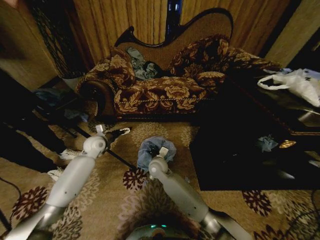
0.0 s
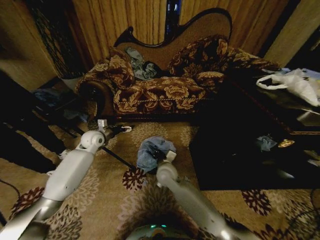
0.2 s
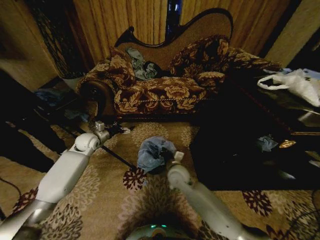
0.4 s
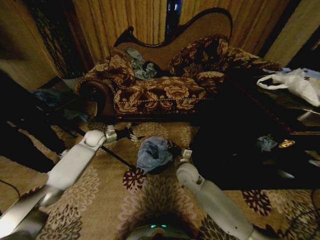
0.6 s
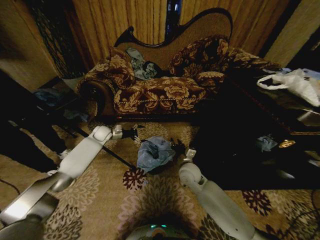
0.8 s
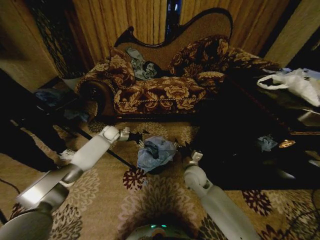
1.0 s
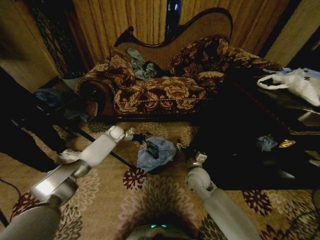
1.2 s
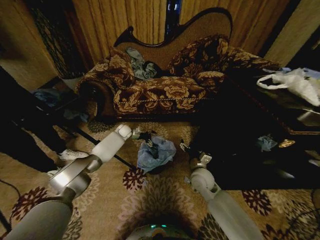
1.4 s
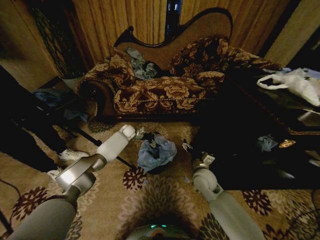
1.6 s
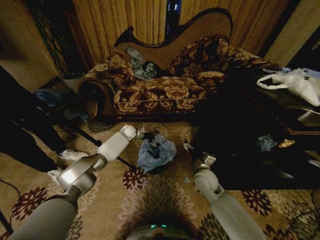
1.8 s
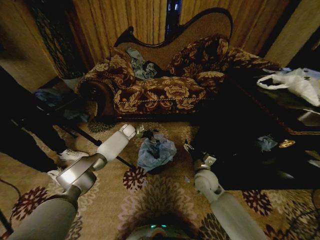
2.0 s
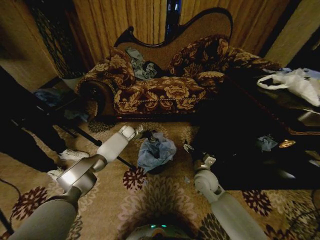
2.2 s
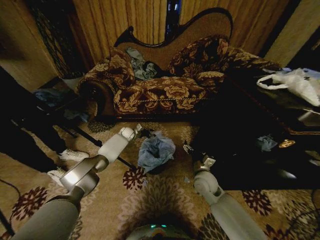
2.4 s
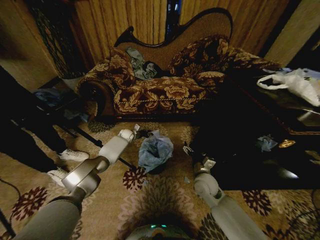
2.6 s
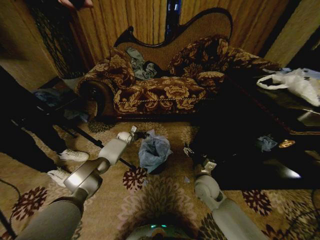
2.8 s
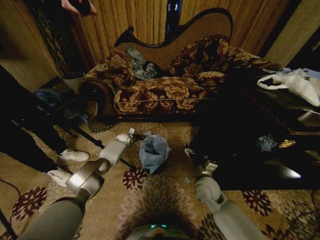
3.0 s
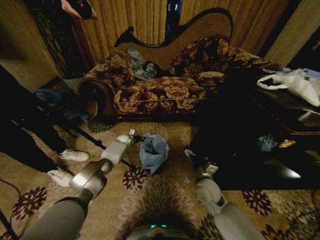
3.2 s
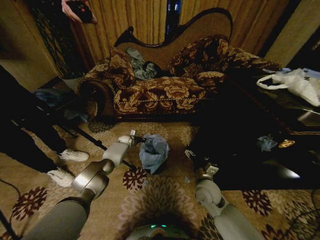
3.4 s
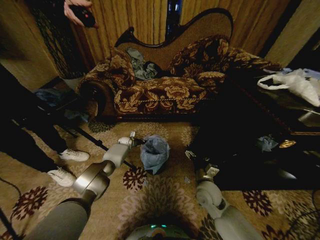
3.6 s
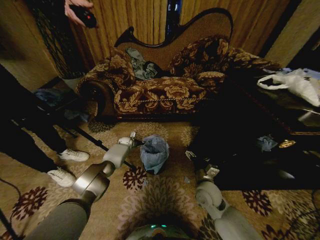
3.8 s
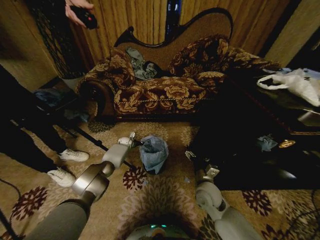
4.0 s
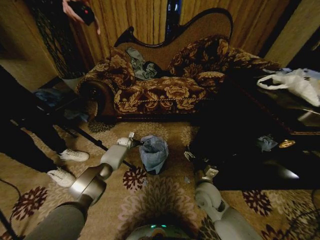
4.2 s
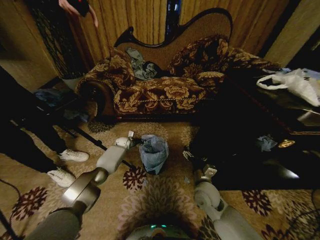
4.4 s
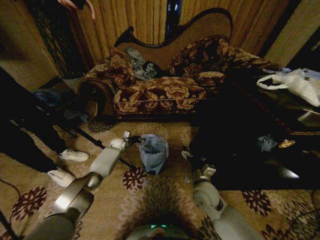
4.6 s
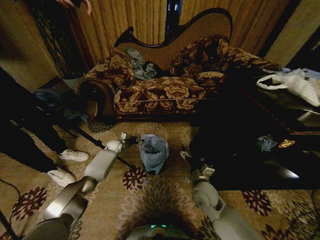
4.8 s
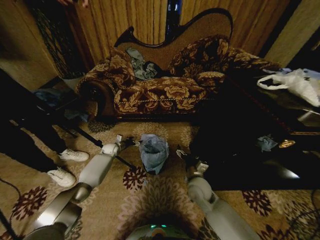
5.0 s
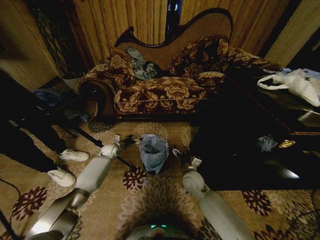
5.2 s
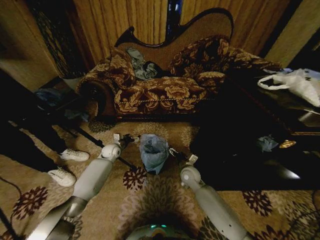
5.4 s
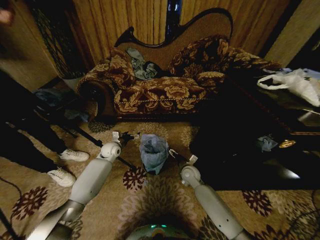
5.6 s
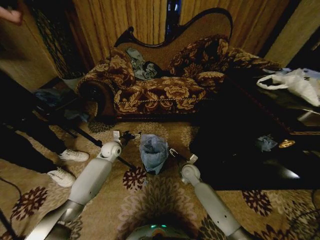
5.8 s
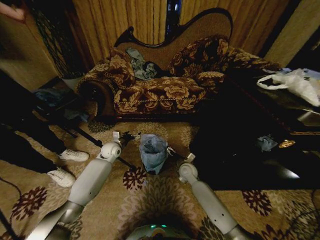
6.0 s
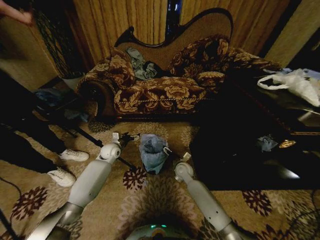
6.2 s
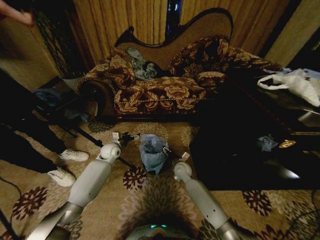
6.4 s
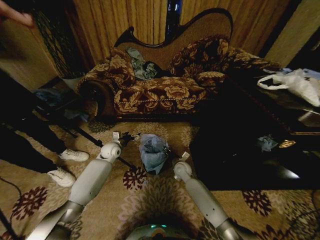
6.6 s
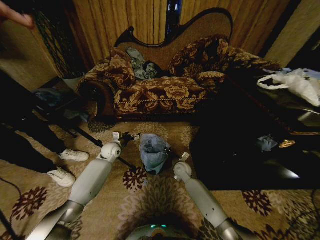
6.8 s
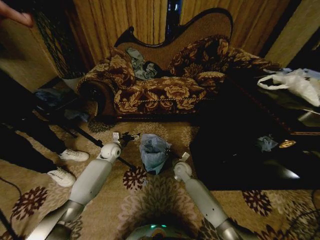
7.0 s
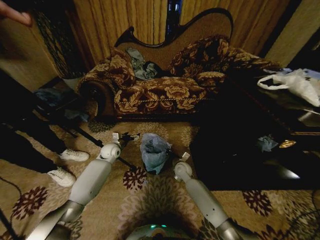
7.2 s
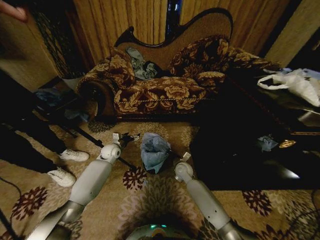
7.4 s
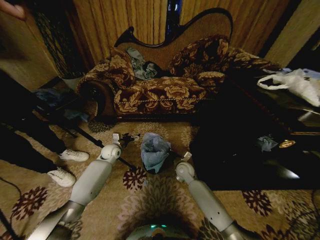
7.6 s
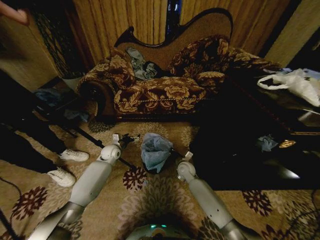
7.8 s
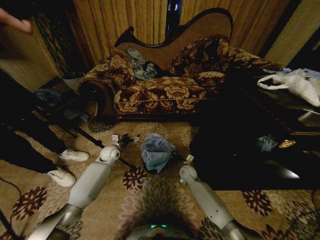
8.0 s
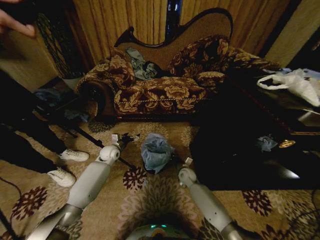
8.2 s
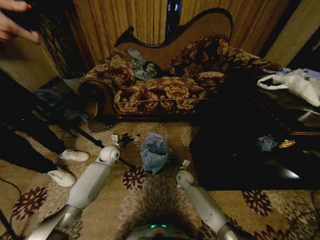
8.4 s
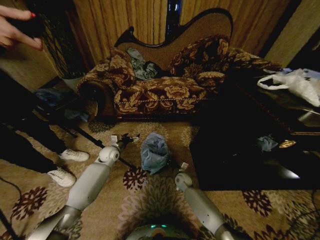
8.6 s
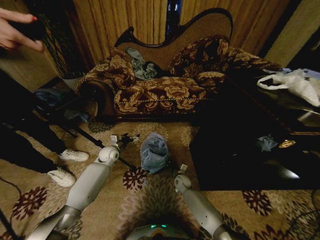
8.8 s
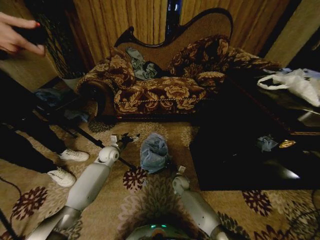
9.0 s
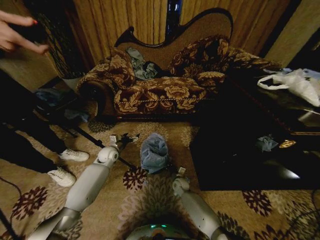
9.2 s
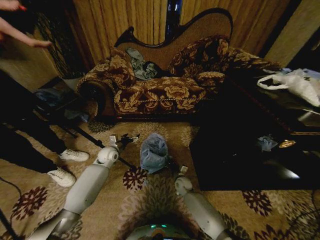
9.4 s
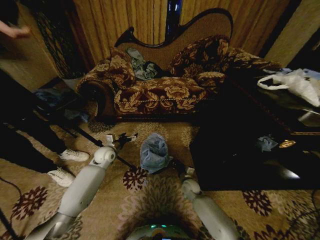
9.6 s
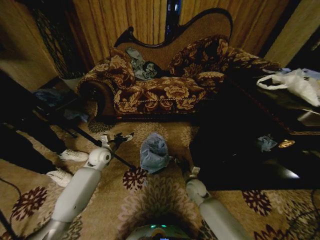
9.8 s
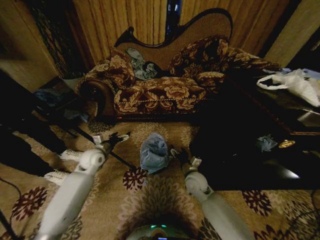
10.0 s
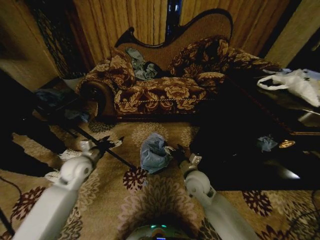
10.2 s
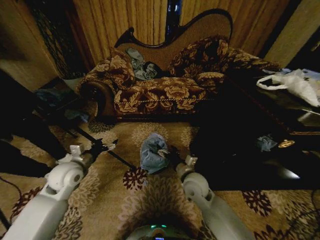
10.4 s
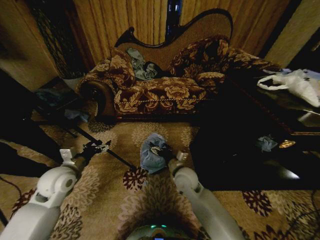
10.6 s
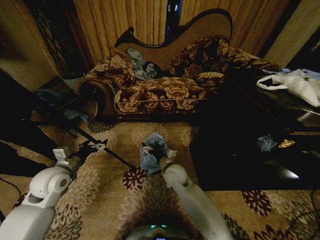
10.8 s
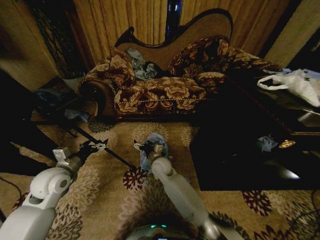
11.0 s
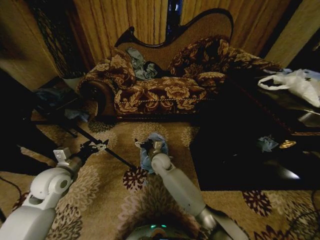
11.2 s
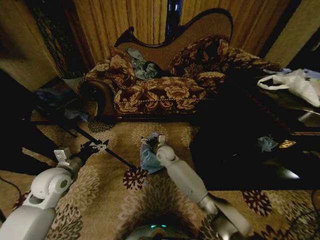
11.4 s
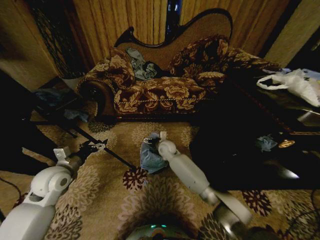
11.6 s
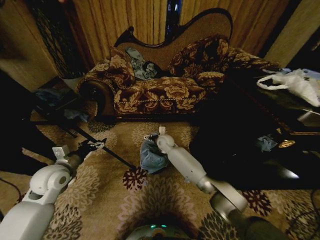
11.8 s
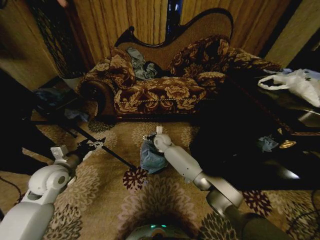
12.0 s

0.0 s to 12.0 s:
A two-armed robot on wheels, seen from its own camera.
Task of the whole recording: Place a garbage bag over the trash bin.
0.0 to 1.6 s: The right gripper moves to the right, roughly 20 cm, and opens, while the left gripper goes some 20 cm forward, to the right and downward.
1.6 to 3.0 s: The left gripper goes approximately 10 cm downward, and closes its fingers.
3.0 to 4.4 s: The grippers make only small movements.
4.4 to 6.0 s: The right gripper shifts about 15 cm forward and downward, while the left gripper is displaced backward and upward by roughly 15 cm, and opens its fingers.
6.0 to 7.6 s: The right gripper closes its fingers.
7.6 to 9.0 s: The right gripper goes roughly 15 cm downward.
9.0 to 10.4 s: The right gripper shifts roughly 25 cm upward and backward, and opens its fingers. Meanwhile the left gripper goes some 20 cm backward and upward.
10.4 to 12.0 s: The right gripper moves forward and to the left, approximately 25 cm.

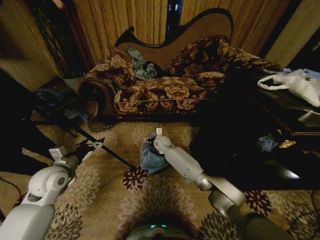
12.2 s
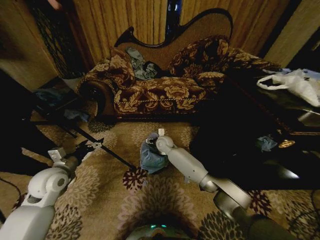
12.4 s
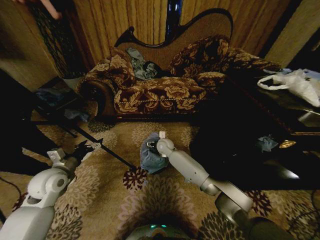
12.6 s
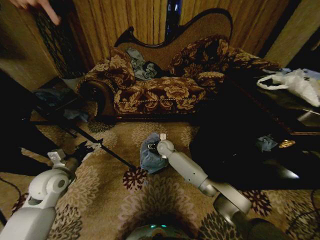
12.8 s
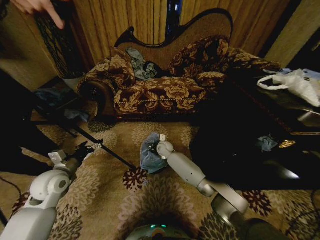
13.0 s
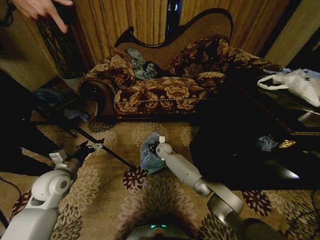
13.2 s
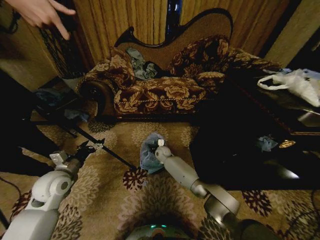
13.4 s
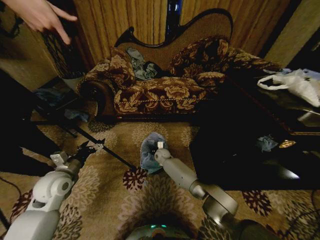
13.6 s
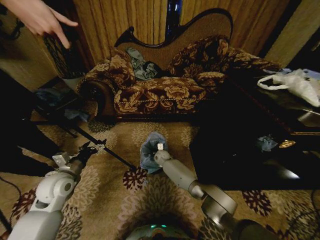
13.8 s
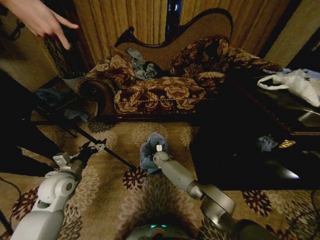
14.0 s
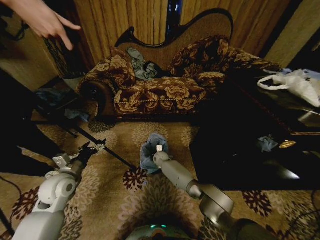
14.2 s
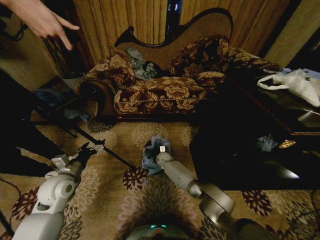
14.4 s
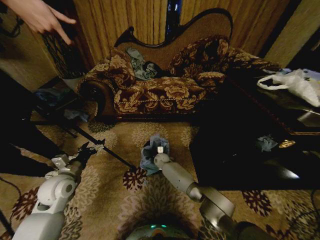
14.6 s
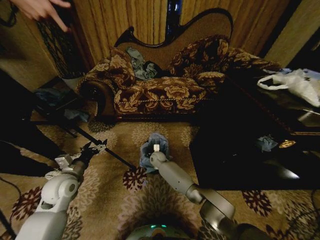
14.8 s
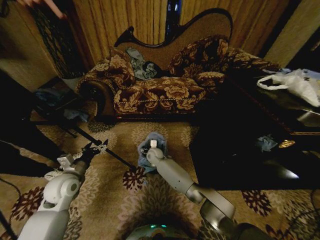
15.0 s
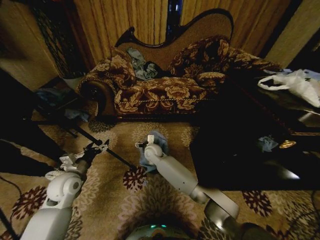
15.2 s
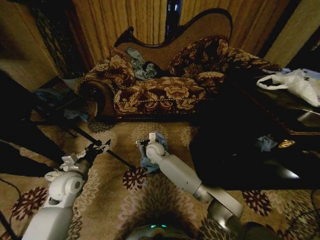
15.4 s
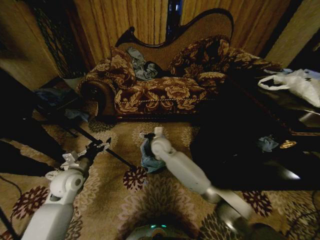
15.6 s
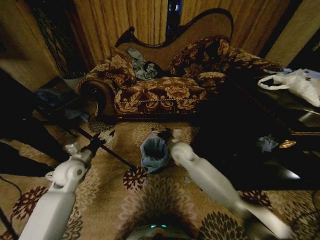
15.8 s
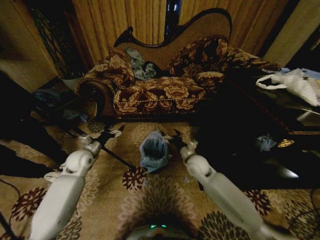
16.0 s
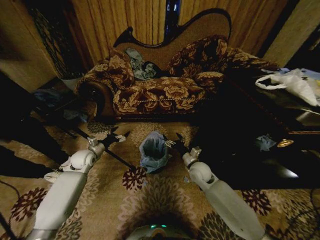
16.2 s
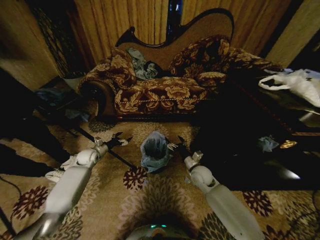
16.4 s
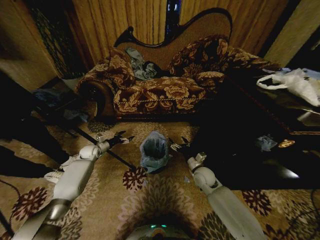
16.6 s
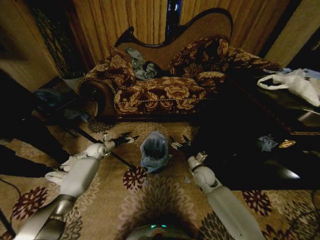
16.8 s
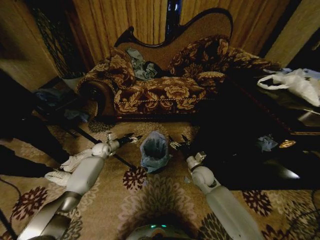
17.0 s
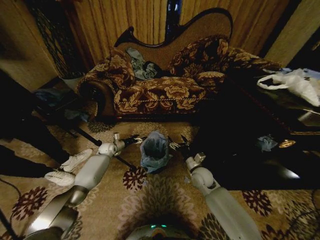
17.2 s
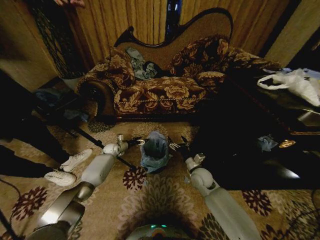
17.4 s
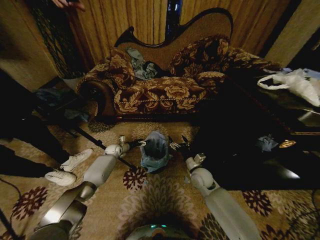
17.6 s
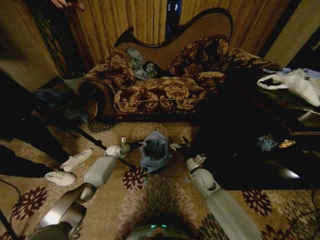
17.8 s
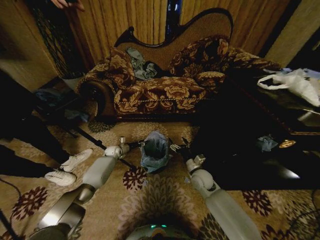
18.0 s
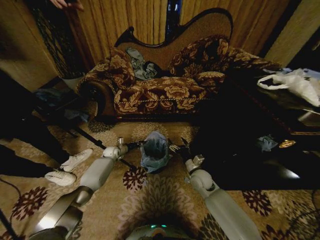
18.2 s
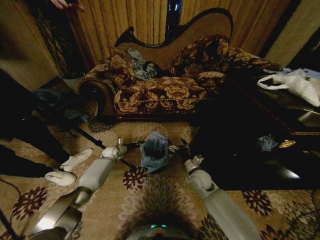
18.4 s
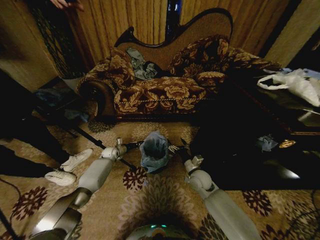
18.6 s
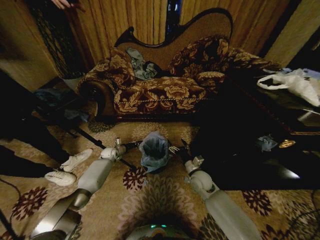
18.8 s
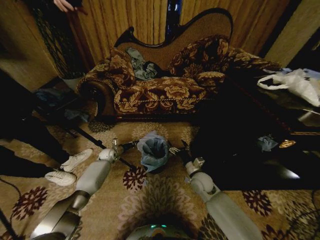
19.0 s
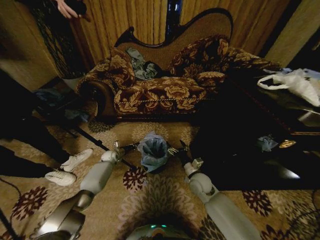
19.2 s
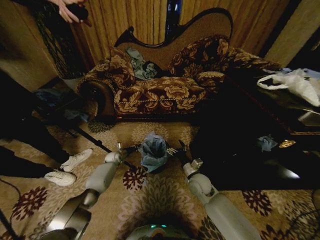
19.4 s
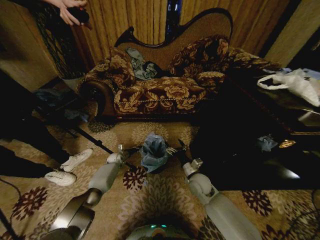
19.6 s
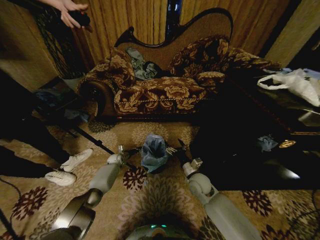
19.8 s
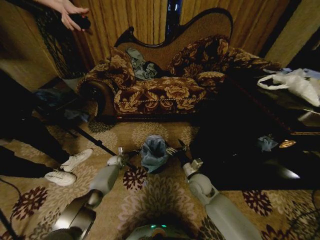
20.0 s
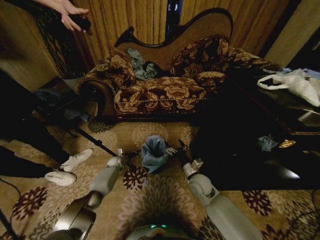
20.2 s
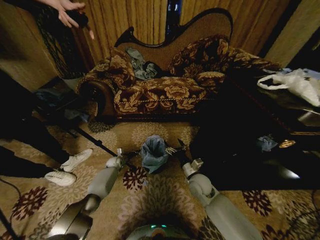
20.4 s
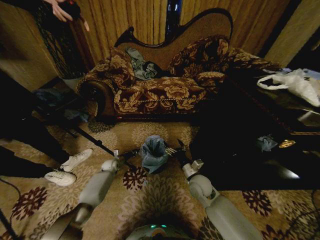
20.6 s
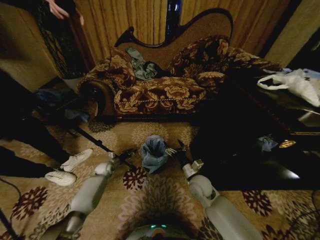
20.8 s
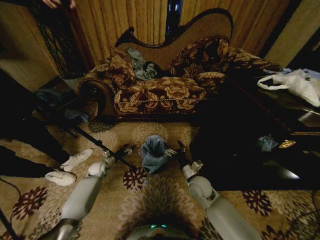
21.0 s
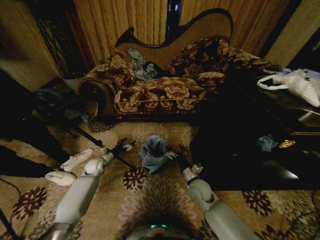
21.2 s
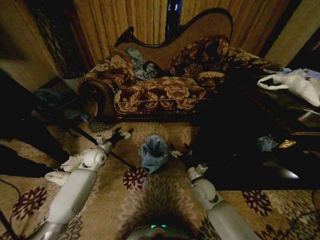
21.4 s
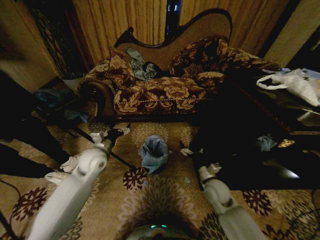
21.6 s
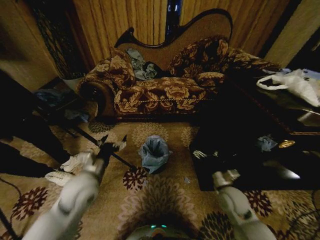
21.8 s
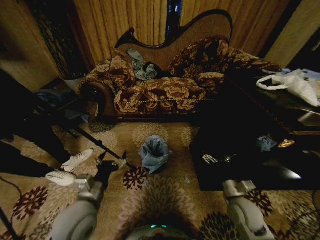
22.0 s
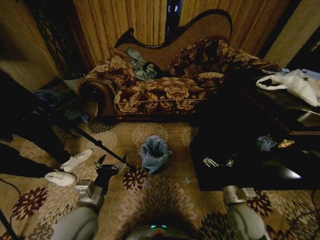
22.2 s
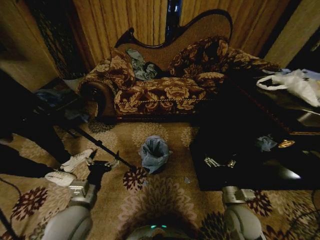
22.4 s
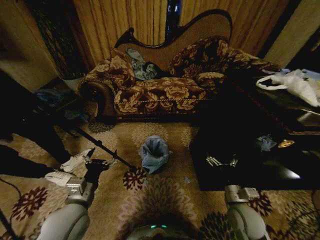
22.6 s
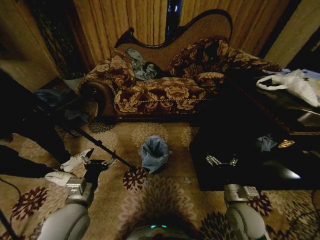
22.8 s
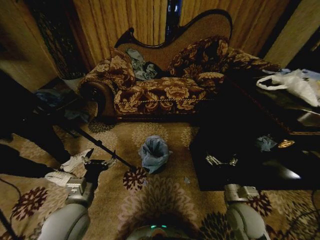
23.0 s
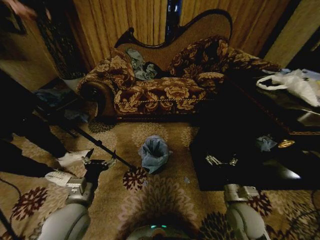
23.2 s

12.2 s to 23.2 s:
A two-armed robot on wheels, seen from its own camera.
Task of the whole recording: Place a garbage bag over the trash bin.
12.2 to 13.8 s: The right gripper heads downward, covering approximately 10 cm, and closes its fingers.
13.8 to 15.4 s: The right gripper is displaced upward and backward by approximately 15 cm, and opens.
15.4 to 17.0 s: The right gripper shifts some 25 cm to the right and backward; the left gripper is displaced forward by some 25 cm.
17.0 to 18.4 s: The left gripper is displaced downward by approximately 5 cm, and closes.
18.4 to 20.0 s: The left gripper moves downward, approximately 10 cm.
20.0 to 21.6 s: The left gripper moves upward and backward, about 30 cm, and opens its fingers; the right gripper goes about 5 cm to the right.
21.6 to 23.2 s: The left gripper moves backward, roughly 20 cm; the right gripper heads backward, covering roughly 10 cm.
